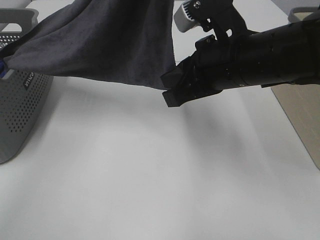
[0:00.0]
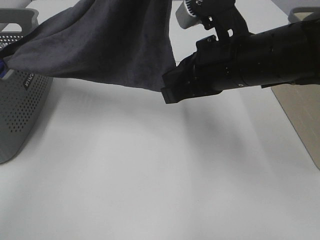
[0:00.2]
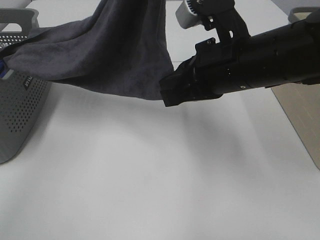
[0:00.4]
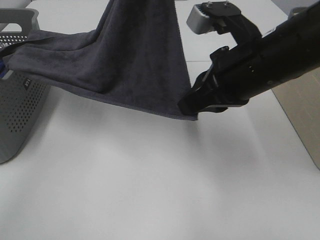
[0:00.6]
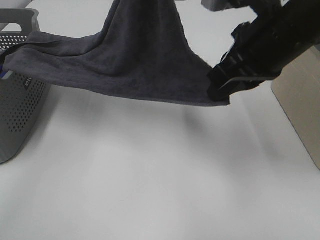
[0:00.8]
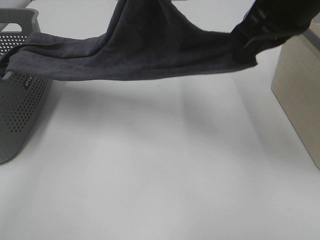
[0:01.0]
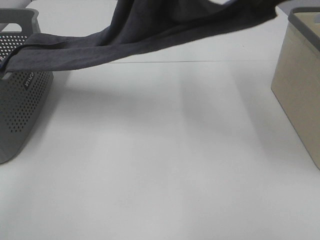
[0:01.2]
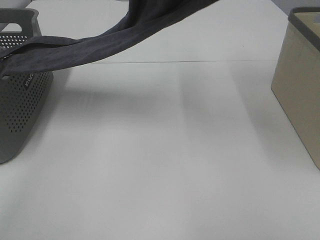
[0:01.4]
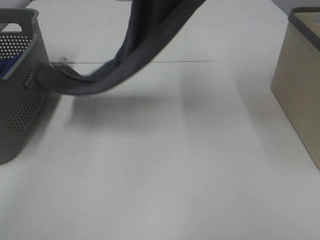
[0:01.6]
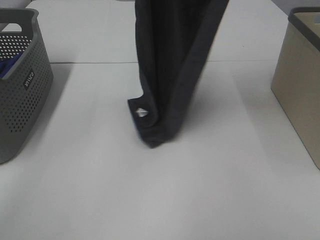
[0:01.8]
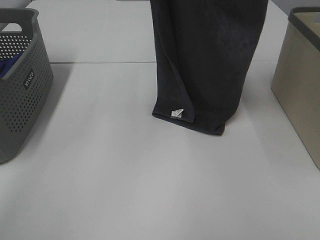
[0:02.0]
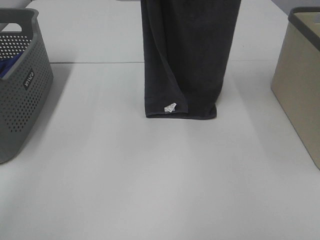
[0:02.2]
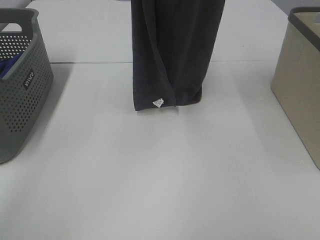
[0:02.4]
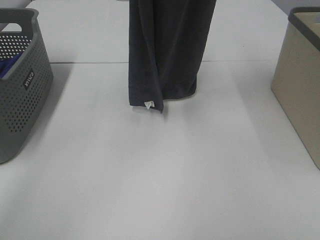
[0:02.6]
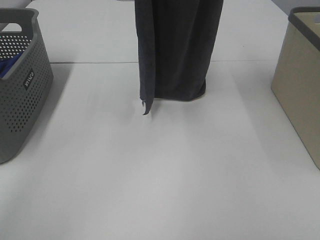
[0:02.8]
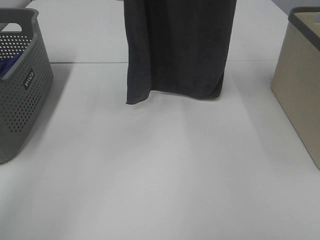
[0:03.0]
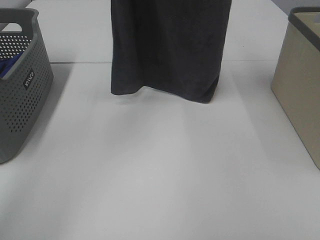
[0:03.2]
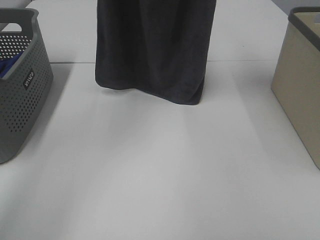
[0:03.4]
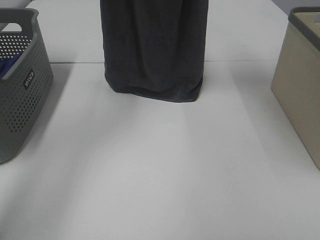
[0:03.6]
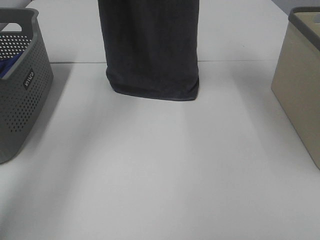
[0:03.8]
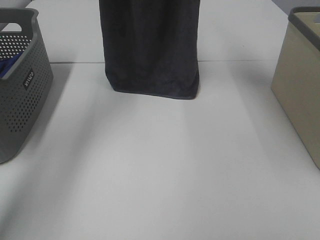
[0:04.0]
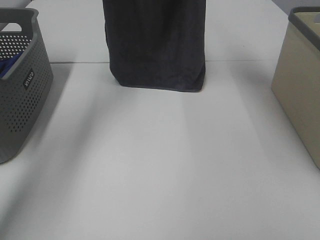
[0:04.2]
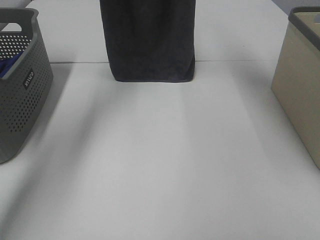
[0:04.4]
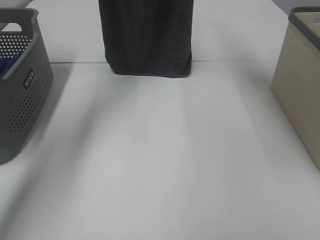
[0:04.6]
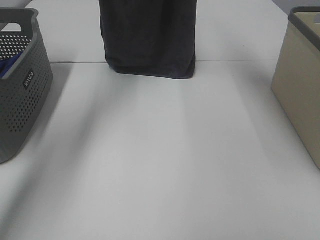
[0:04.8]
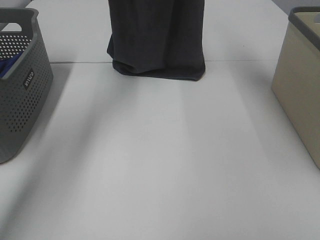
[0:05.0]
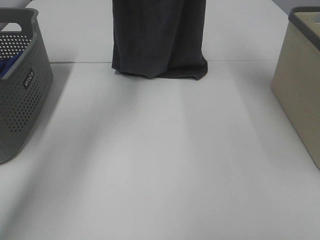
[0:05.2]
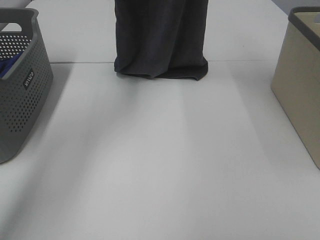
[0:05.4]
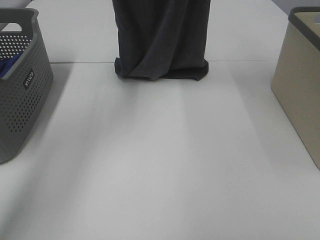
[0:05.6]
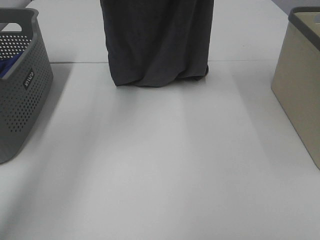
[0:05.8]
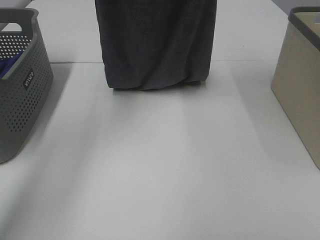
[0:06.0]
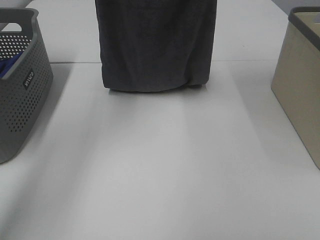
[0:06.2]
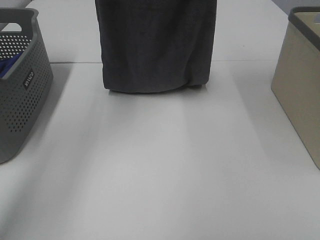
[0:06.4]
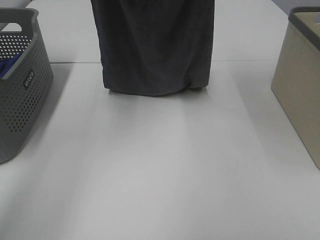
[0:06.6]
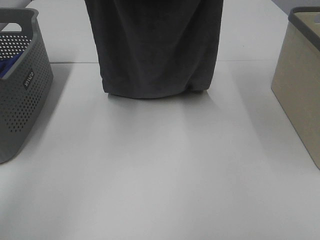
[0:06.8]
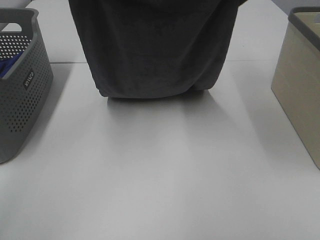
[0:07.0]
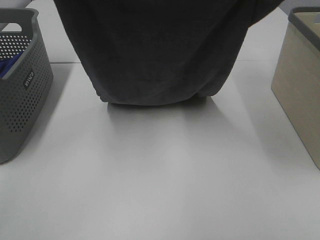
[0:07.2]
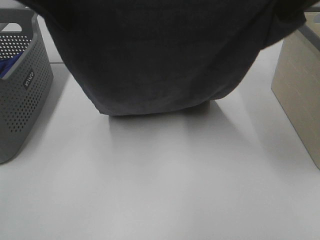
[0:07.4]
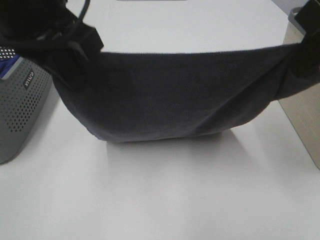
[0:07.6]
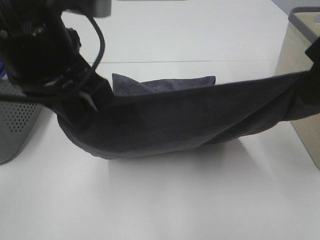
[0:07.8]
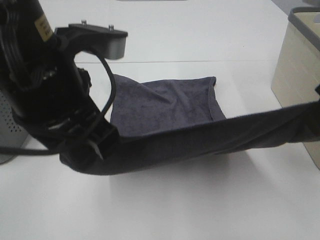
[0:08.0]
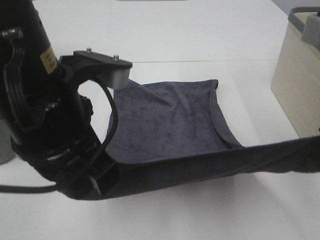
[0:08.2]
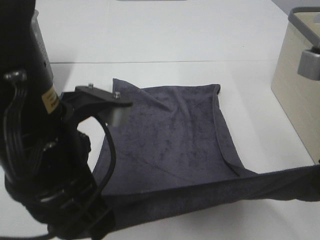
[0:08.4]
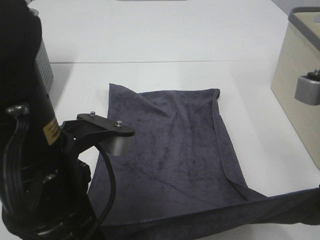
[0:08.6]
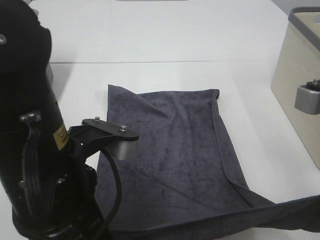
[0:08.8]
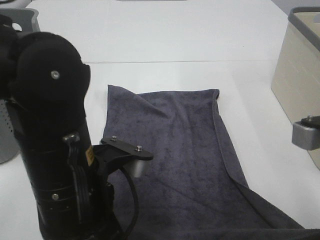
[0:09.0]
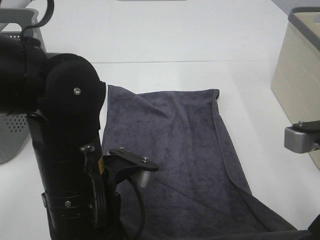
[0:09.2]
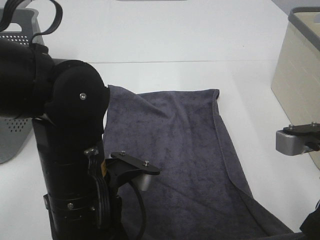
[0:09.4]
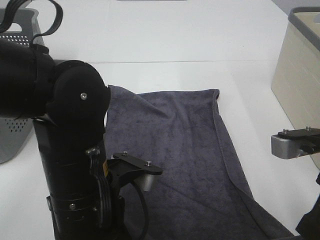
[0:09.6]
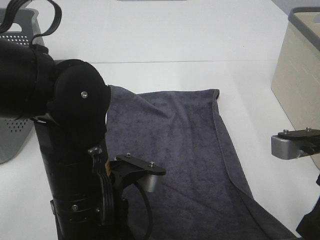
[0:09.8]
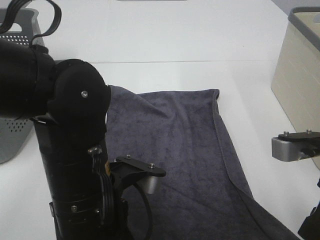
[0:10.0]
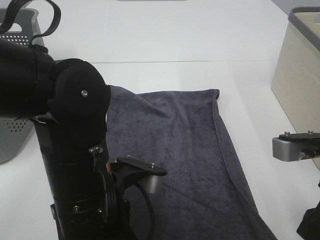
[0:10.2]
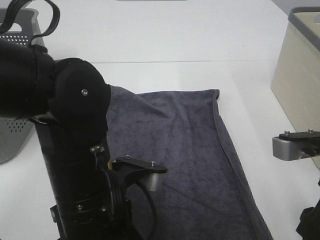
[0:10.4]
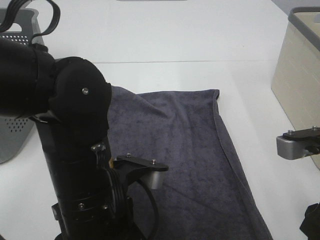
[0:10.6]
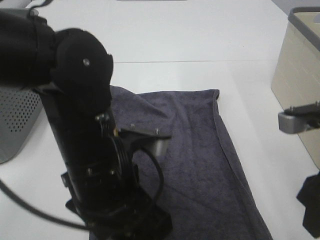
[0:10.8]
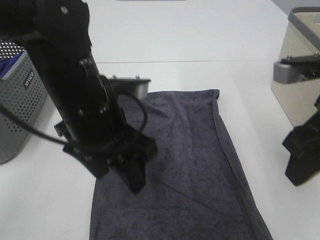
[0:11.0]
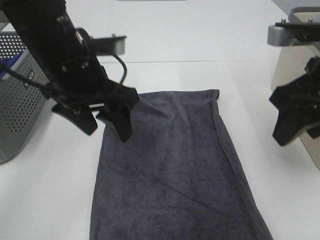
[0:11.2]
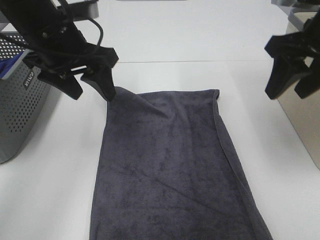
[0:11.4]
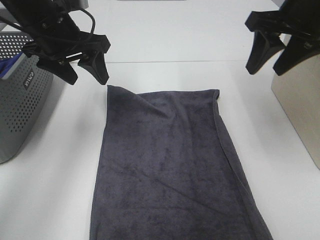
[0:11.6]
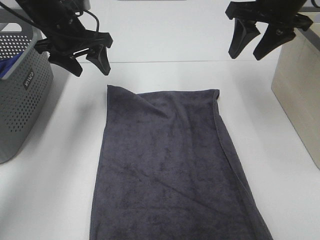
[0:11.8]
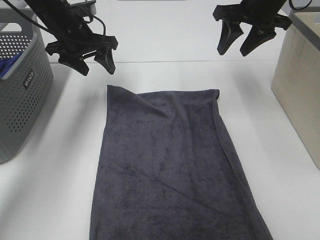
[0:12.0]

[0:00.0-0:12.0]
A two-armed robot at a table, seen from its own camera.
Task of the whole recording: Remove the towel and place it.
Step, 0.6 to 6.2 s: Left hand: spread the grey towel flat on the table.
Step, 0.6 to 6.2 s: Right hand: spread the grey towel flat on the table.
0.0 to 1.6 s: The right gripper travels upward by roughly 25 cm.
1.6 to 3.0 s: The right gripper moves some 5 cm. The left gripper moves forward and to the left, about 5 cm.
3.0 to 4.4 s: The right gripper travels forward by approximately 10 cm; the left gripper shifts about 15 cm forward and downward.
4.4 to 6.0 s: Both grippers move backward, approximately 5 cm.
6.0 to 7.6 s: The grippers both shift backward and downward by approximately 20 cm.
7.6 to 9.0 s: The two grippers go approximately 15 cm downward and backward.
9.0 to 10.4 s: The left gripper opens up. The right gripper opens its fingers.
10.4 to 12.0 s: Both grippers move forward, roughly 30 cm.

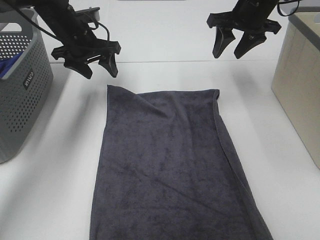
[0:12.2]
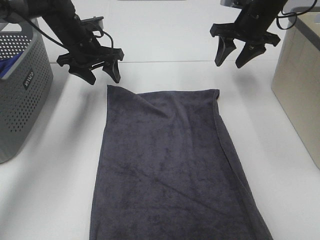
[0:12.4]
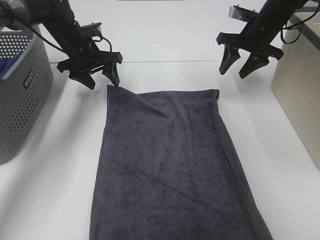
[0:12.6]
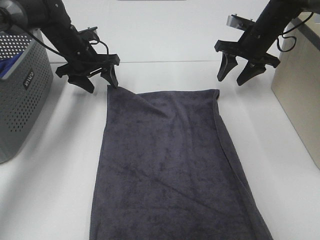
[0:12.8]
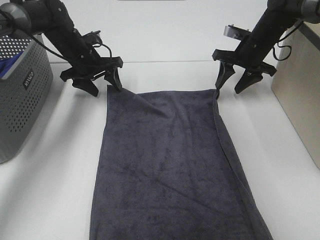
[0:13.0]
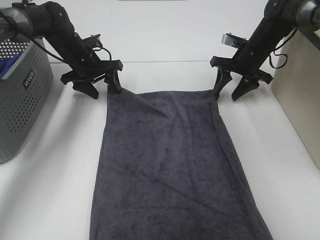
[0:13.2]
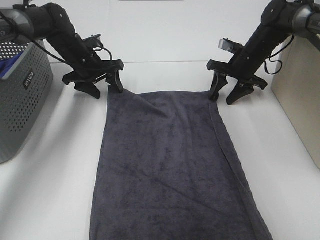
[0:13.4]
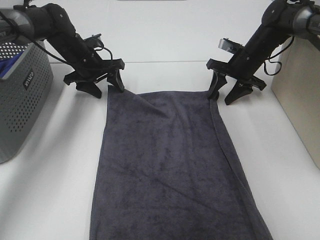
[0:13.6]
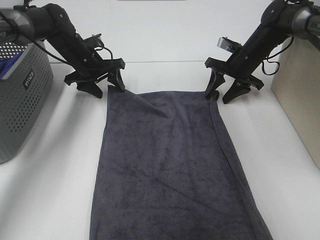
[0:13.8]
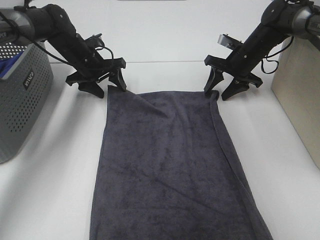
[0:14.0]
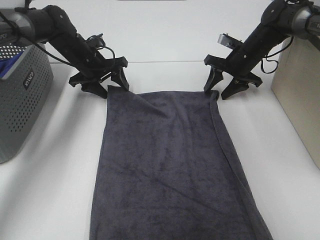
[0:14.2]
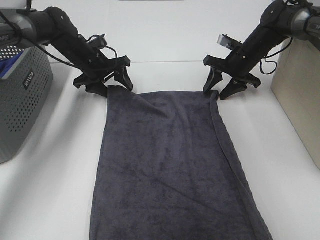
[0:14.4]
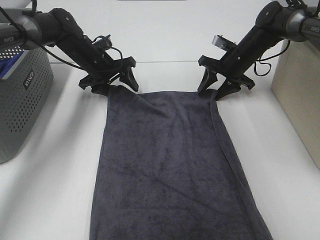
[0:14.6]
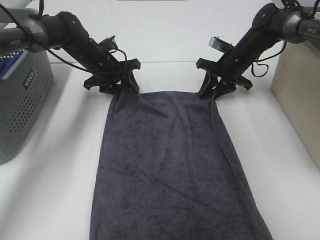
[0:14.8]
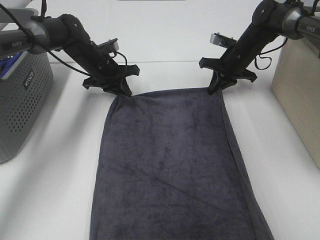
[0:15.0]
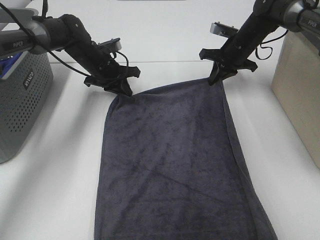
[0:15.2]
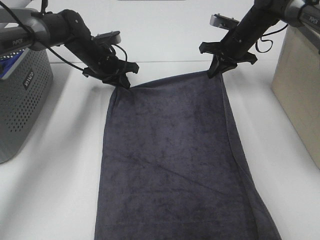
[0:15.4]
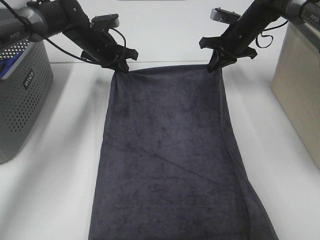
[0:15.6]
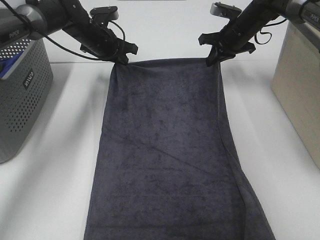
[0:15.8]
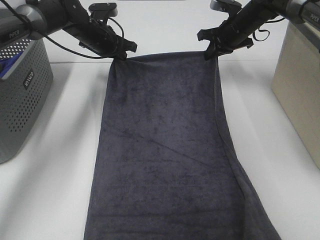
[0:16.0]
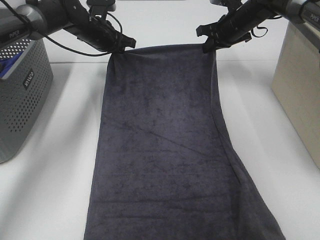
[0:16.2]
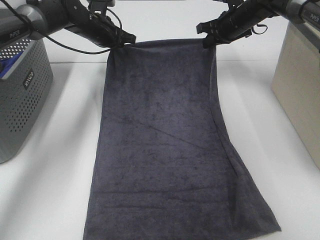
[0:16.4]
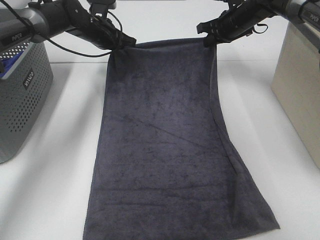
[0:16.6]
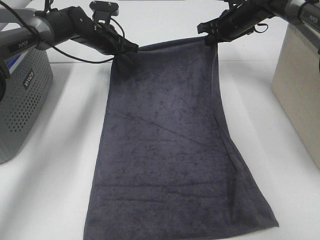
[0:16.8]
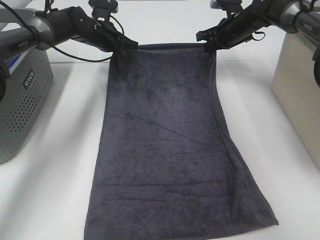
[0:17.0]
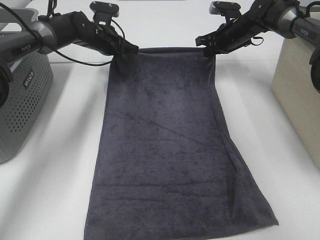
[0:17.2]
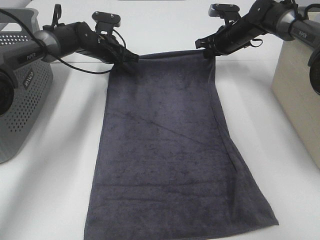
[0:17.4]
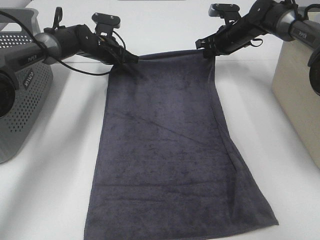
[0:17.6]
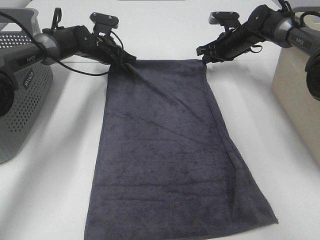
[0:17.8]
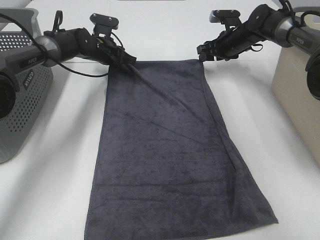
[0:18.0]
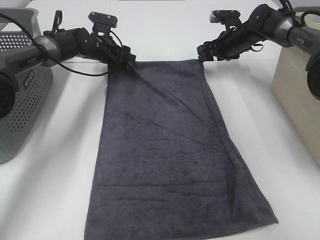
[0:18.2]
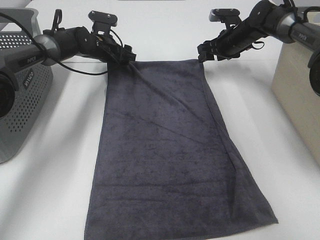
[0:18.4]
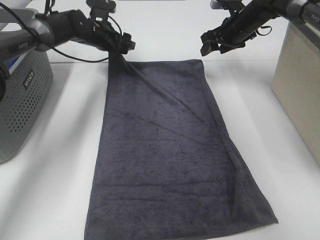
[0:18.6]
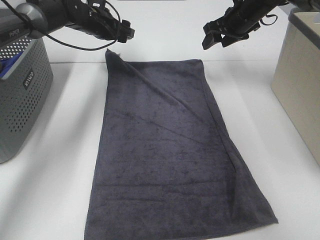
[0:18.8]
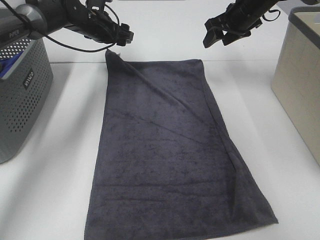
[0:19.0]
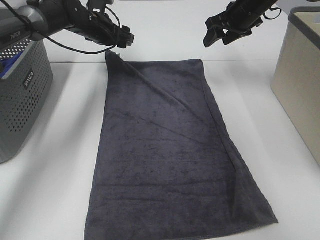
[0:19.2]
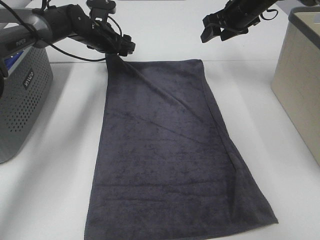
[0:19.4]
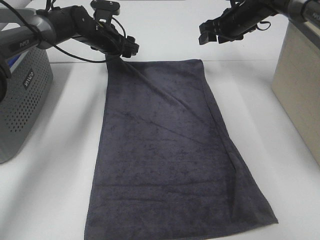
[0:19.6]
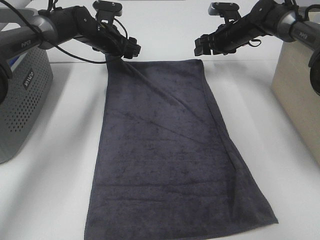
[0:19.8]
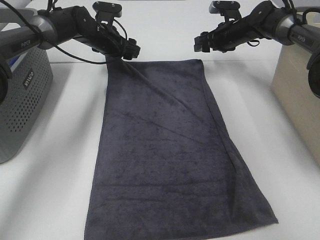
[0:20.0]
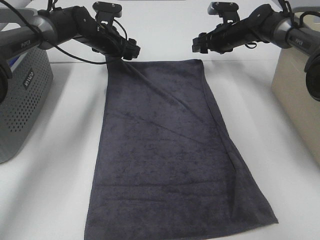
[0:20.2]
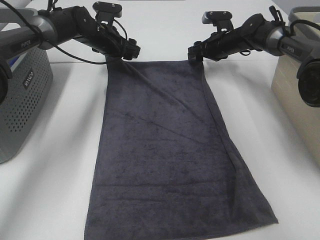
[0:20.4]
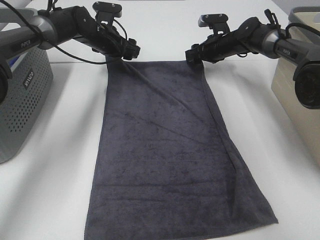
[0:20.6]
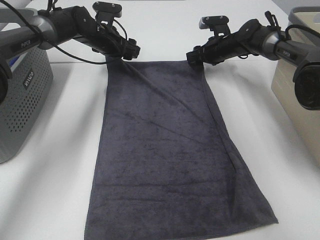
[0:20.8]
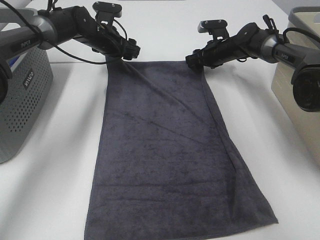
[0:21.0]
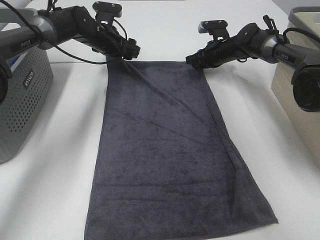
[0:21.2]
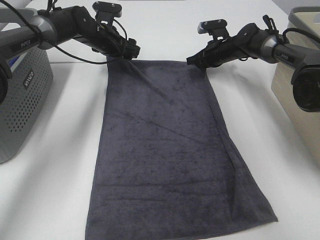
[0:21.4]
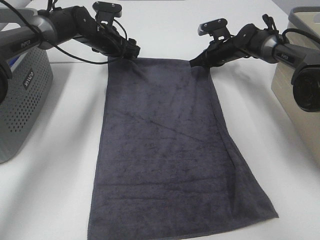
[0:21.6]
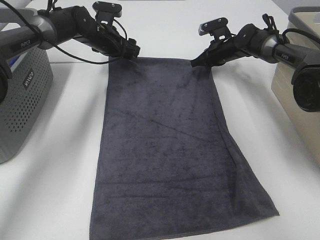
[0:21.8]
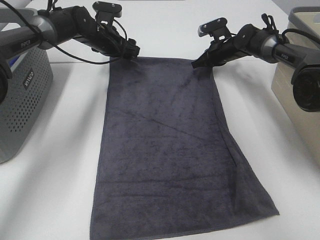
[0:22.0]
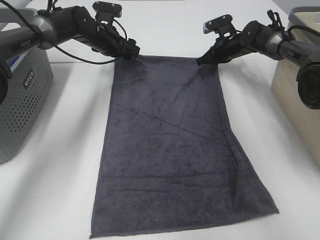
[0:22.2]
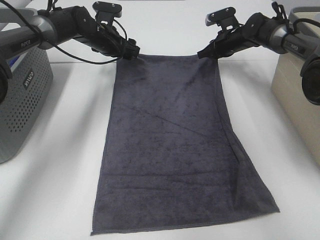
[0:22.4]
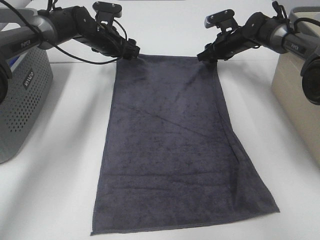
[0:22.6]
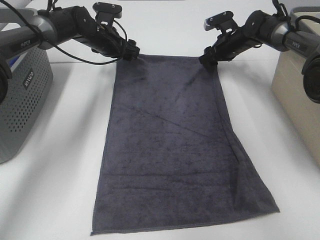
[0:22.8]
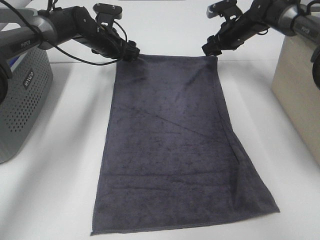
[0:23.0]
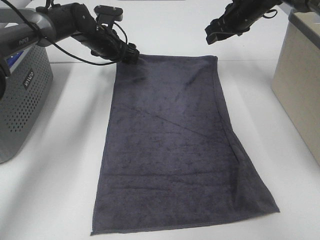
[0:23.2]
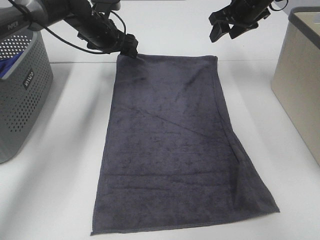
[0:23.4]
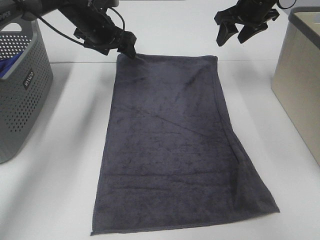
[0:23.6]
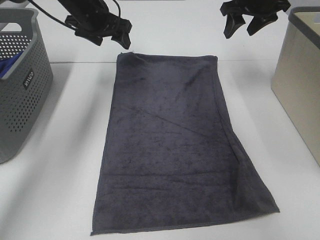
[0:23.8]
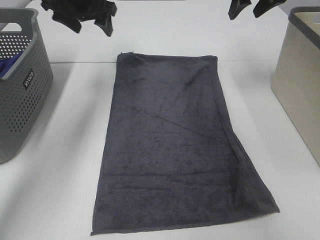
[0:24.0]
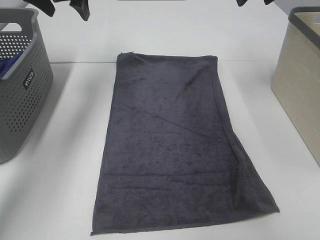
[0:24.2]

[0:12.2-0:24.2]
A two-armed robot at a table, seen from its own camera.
Task of the whole recording: Remove the towel and place it.
Step, 12.2 to 16.2 s: Right hand:adjust the gray towel.
12.2 to 13.8 s: The right gripper goes some 15 cm downward; the left gripper shifts roughly 5 cm downward.
13.8 to 15.2 s: The left gripper closes; the right gripper closes.
15.2 to 16.6 s: The right gripper ends up some 5 cm from where it was. Meanwhile the left gripper shifts approximately 5 cm upward and forward.
16.6 to 18.2 s: The two grippers go some 5 cm downward. The left gripper opens up. Meanwhile the right gripper opens its fingers.
18.2 to 19.8 s: The right gripper reaches approximately 10 cm upward, then returns.
19.8 to 21.2 s: The right gripper moves downward, roughly 5 cm, and closes its fingers.
21.2 to 22.6 s: The right gripper opens its fingers.
22.6 to 24.2 s: The two grippers go some 25 cm upward and backward.
